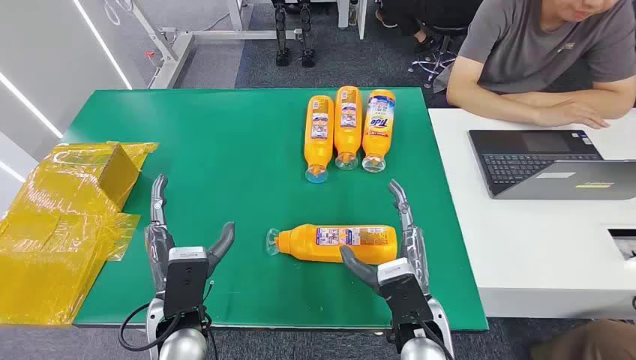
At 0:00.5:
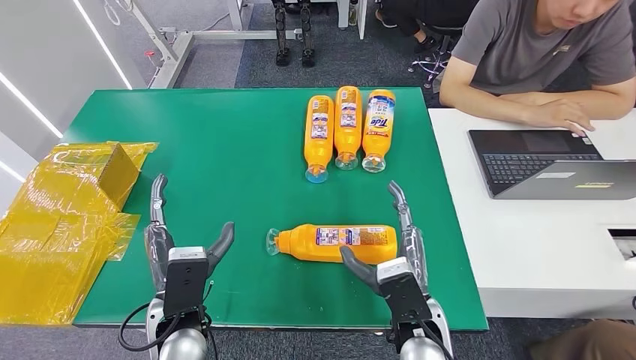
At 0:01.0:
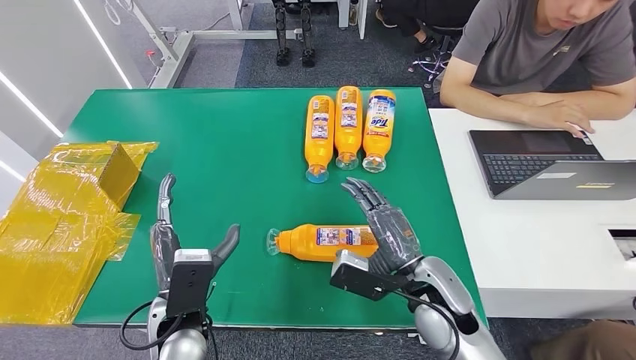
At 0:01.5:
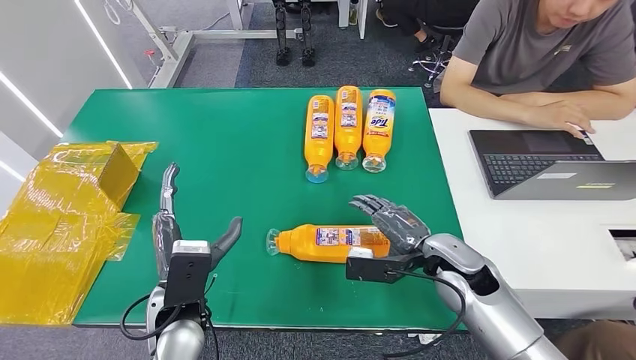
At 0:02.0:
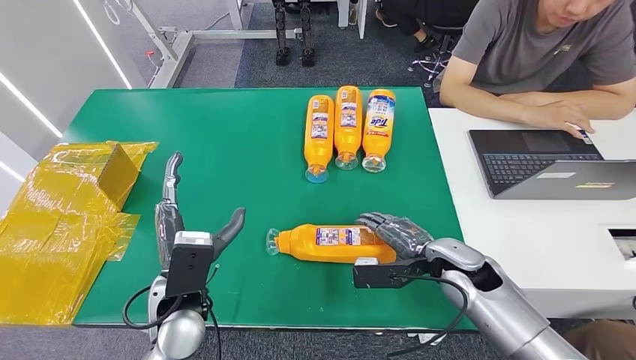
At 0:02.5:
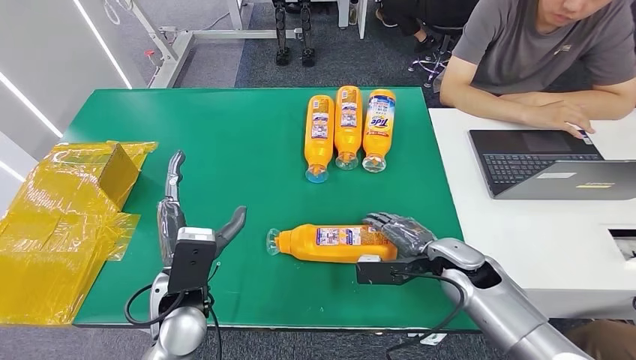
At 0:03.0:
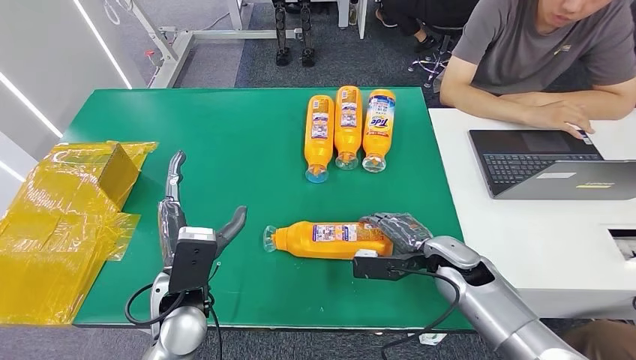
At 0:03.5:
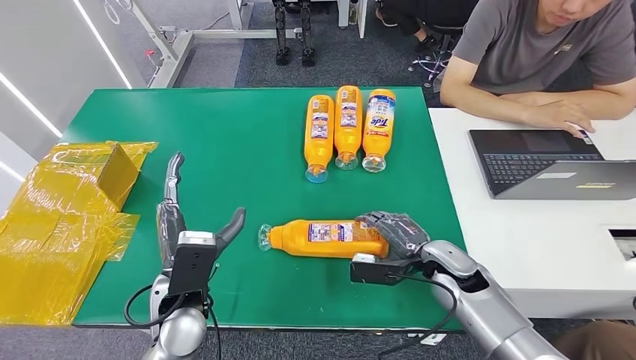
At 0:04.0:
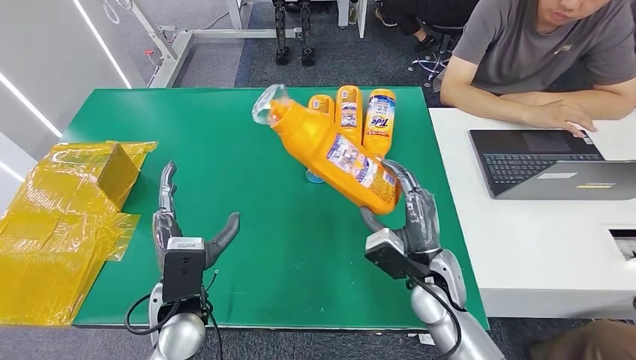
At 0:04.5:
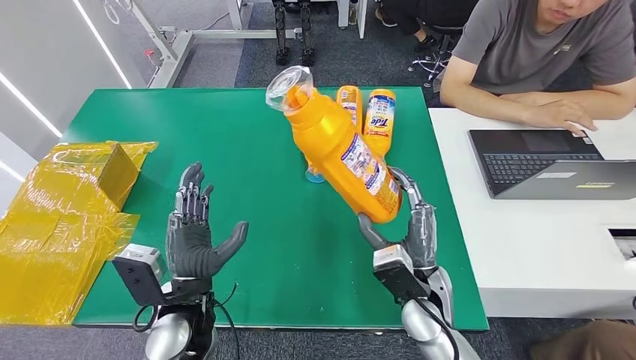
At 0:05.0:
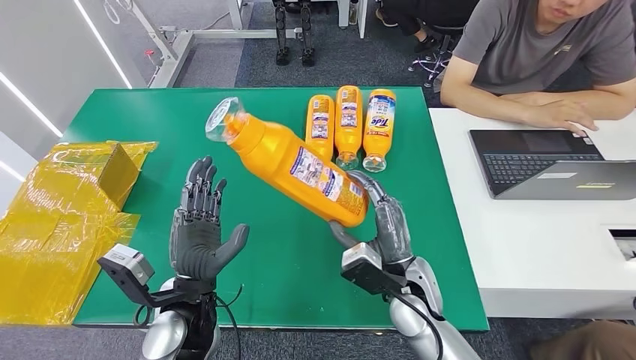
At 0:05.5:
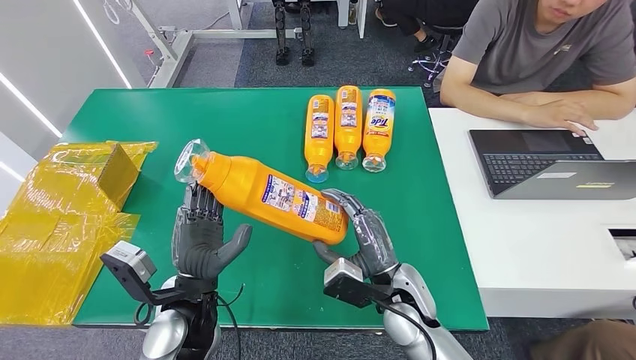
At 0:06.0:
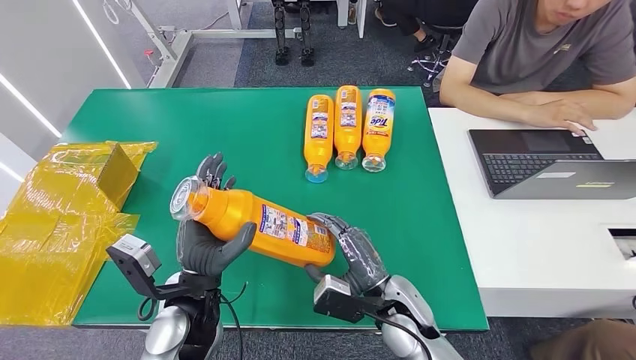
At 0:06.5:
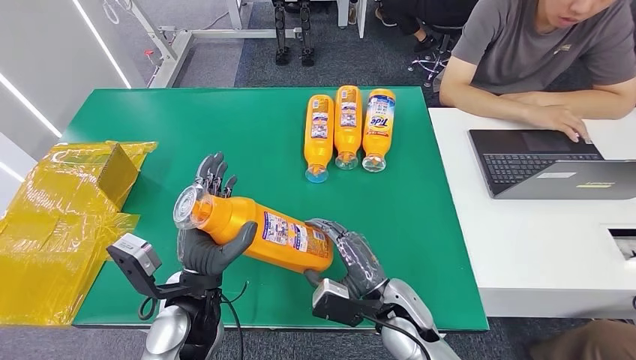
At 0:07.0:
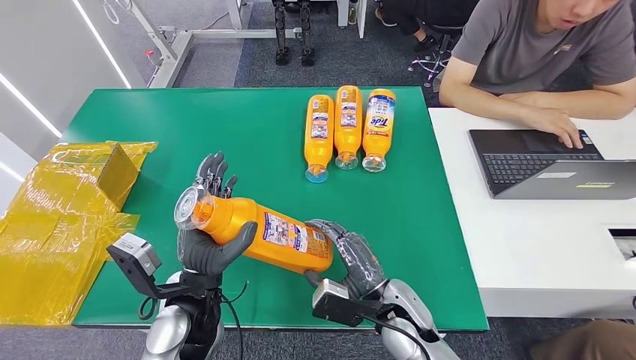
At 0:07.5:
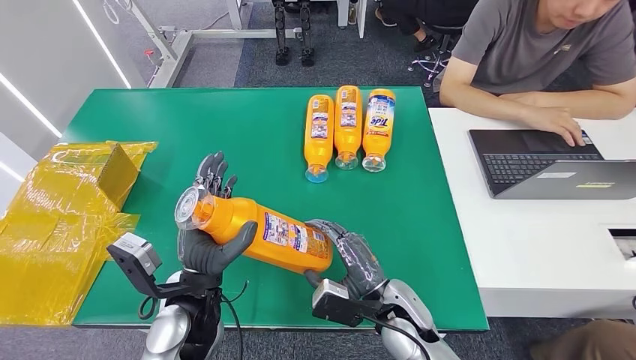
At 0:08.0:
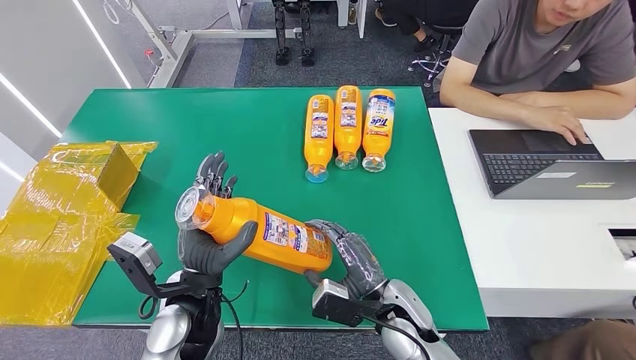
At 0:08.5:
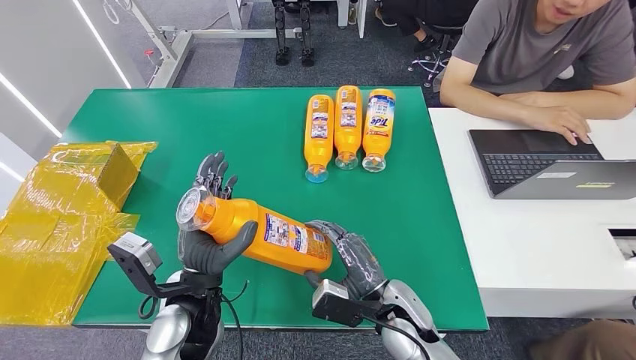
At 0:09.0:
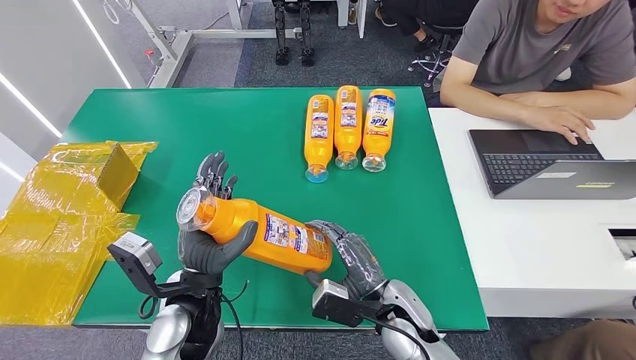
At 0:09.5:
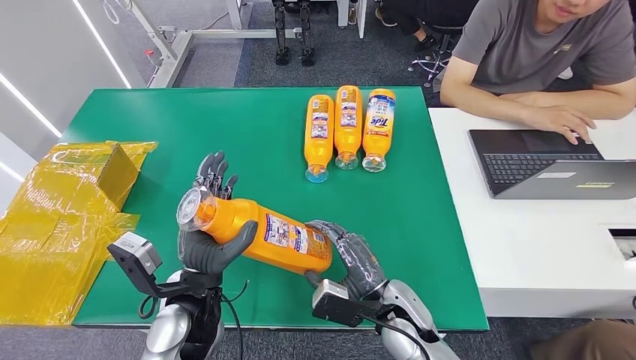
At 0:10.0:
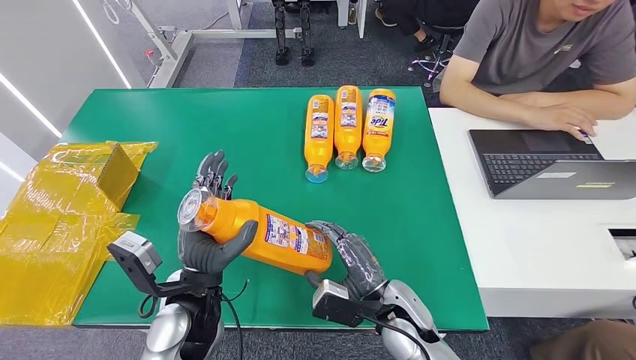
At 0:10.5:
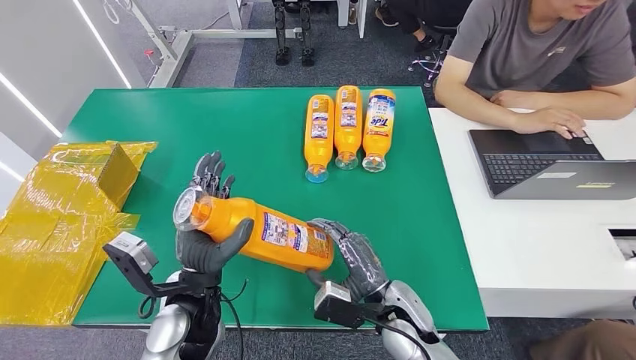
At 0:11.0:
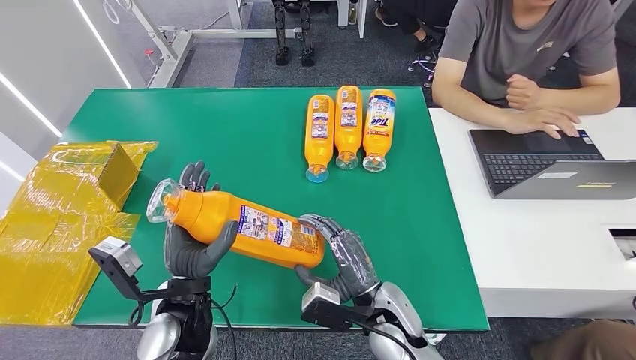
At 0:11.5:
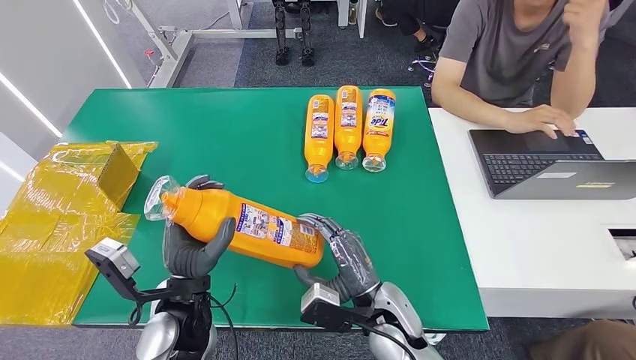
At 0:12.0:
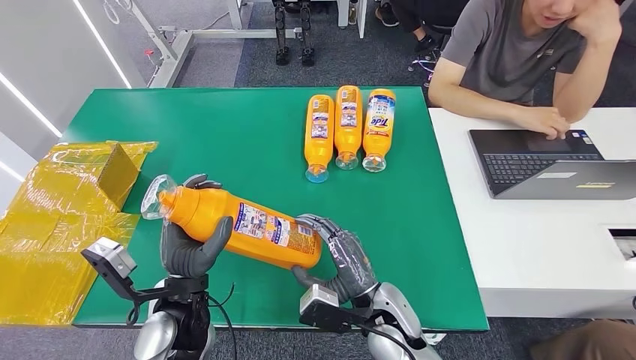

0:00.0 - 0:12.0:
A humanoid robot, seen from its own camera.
Step, 0:00.0 - 0:06.0: Pick up the bottle from the table.
0:02.0 - 0:04.0: The right hand shifts roughly 5 cm to the left.
0:04.0 - 0:06.0: The right hand heads to the left, covering some 5 cm.
0:06.0 - 0:10.0: Both hands stay about where they are.
0:10.0 - 0:12.0: The hands stay close to where they were, moving slightly.

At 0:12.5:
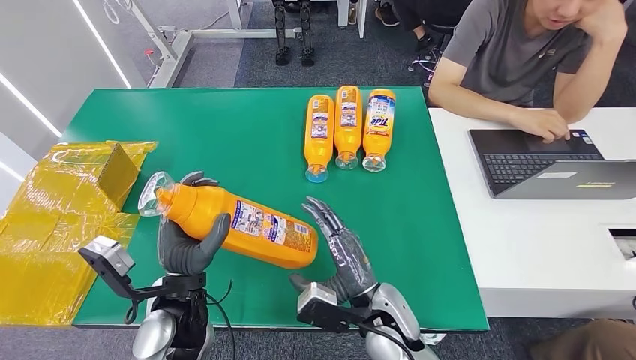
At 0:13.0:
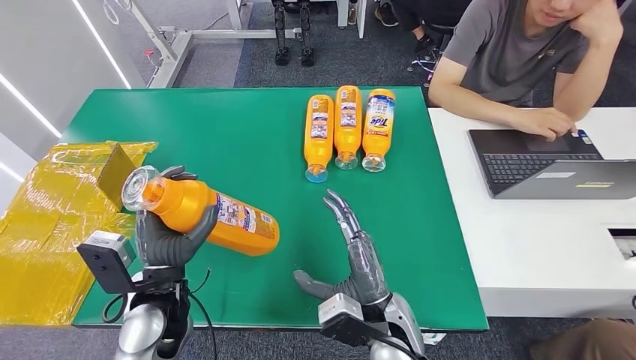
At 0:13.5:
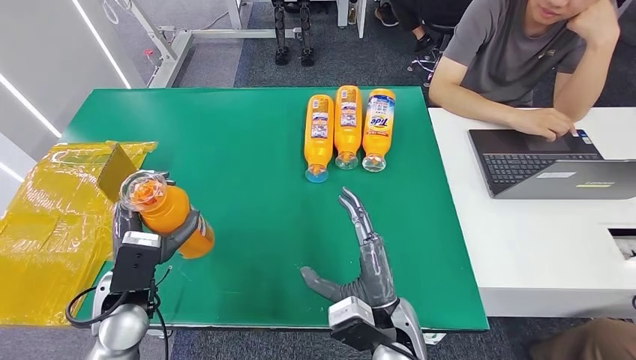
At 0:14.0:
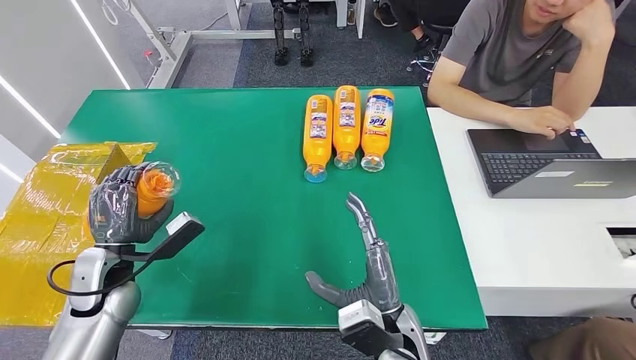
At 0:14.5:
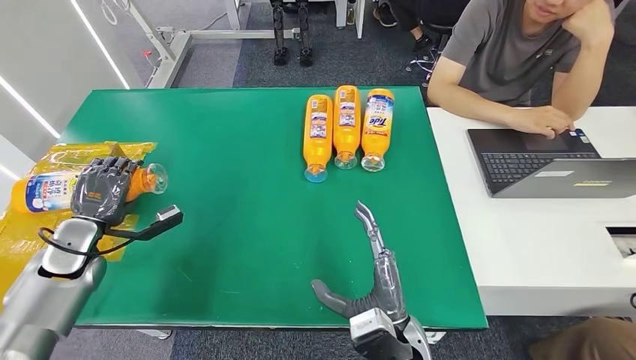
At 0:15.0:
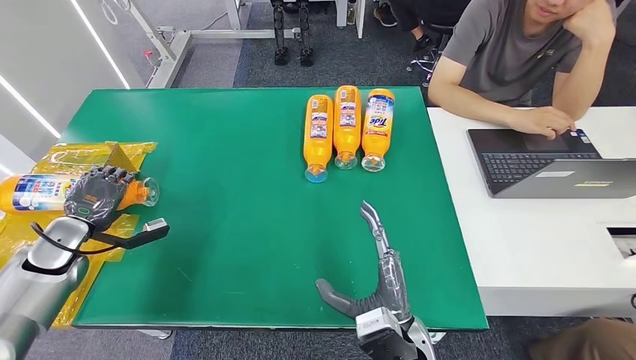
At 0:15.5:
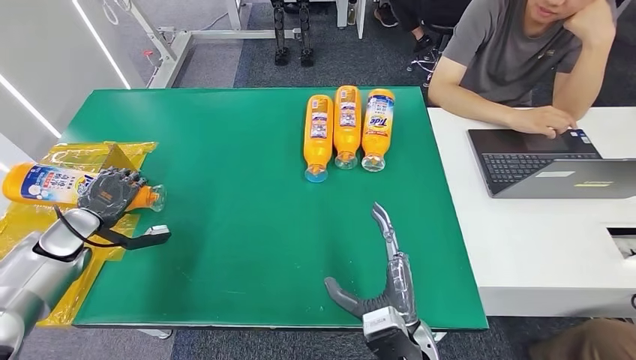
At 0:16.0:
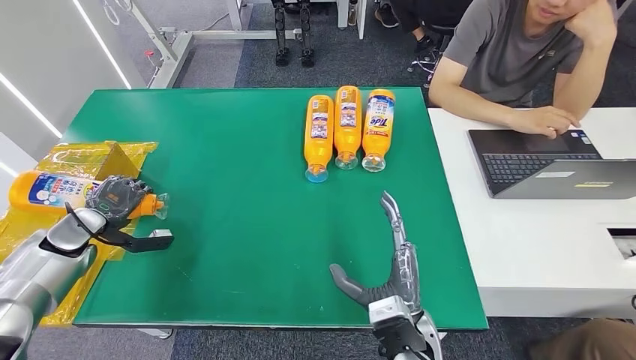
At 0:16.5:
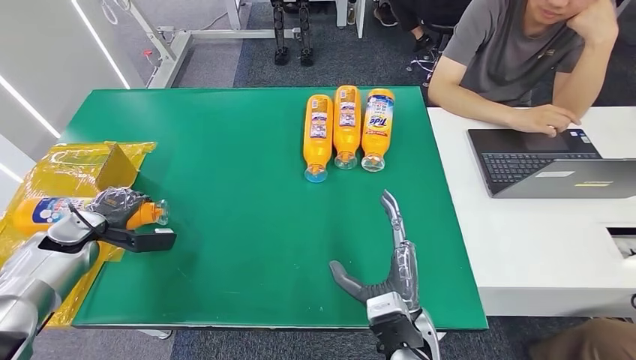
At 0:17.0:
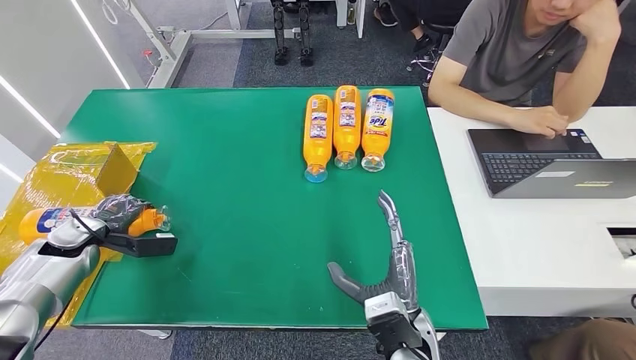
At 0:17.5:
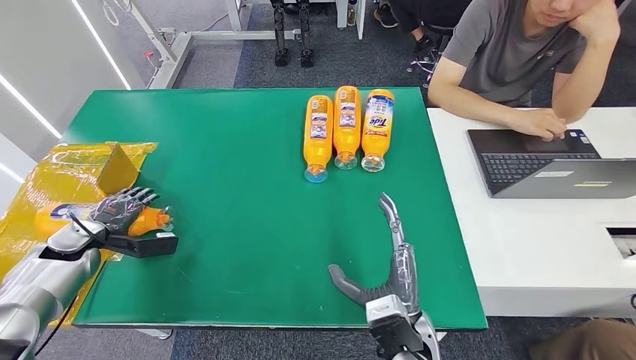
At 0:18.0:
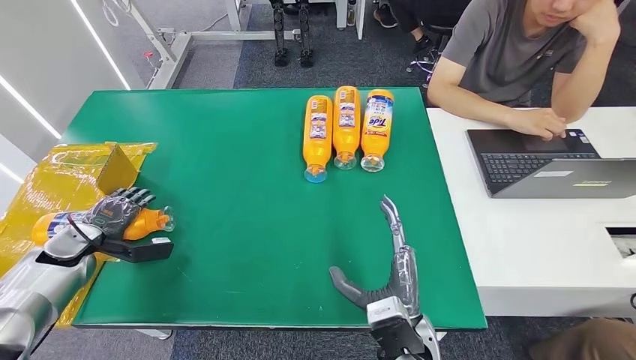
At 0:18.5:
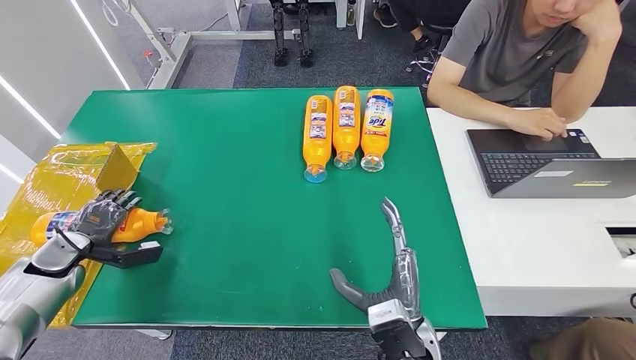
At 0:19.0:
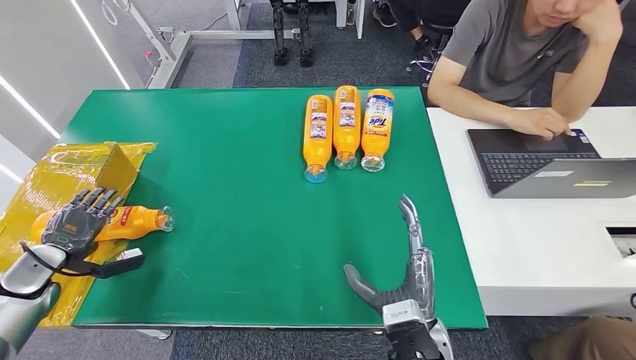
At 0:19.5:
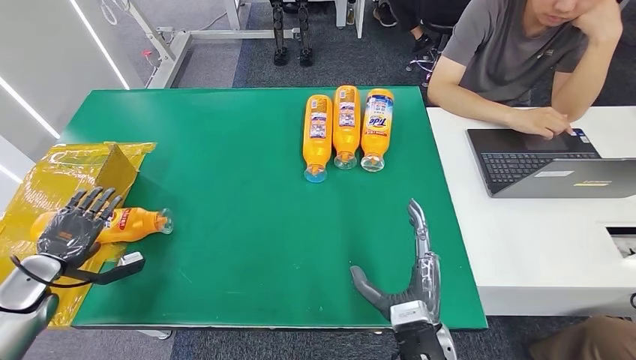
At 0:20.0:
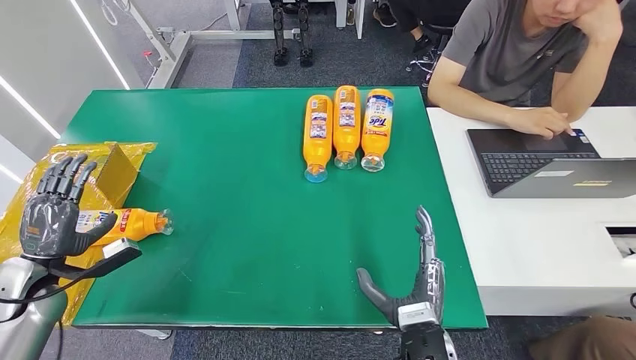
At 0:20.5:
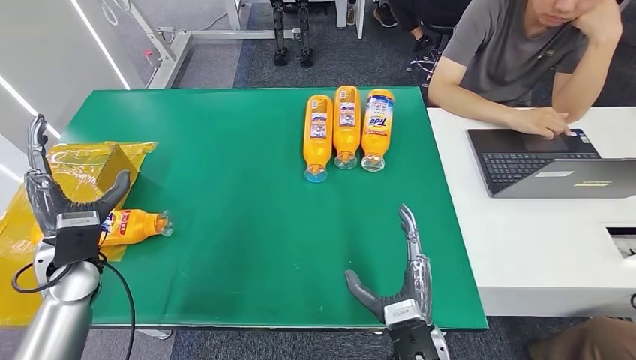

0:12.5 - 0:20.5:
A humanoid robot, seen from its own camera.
Step, 0:12.5 - 0:20.5: Turn the bottle to the front side.
0:14.5 - 0:16.5: The left hand shifts by about 5 cm.
0:16.5 - 0:18.5: The left hand moves about 5 cm.
0:18.5 - 0:20.5: The left hand moves to the right and upward, roughly 15 cm.
